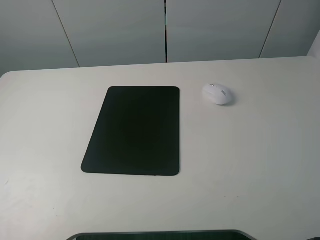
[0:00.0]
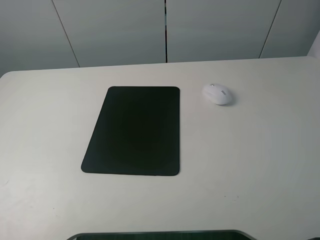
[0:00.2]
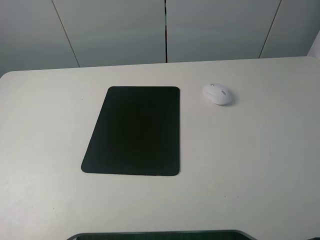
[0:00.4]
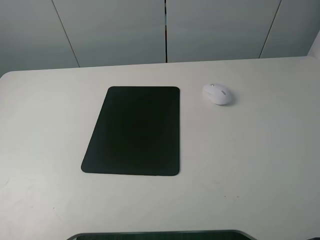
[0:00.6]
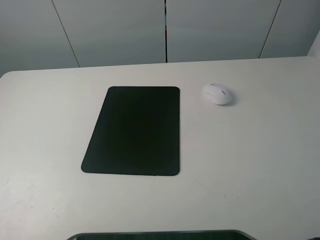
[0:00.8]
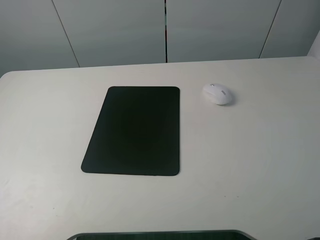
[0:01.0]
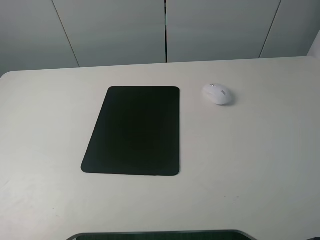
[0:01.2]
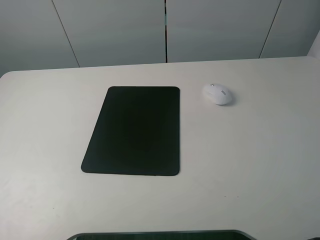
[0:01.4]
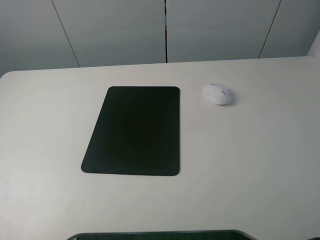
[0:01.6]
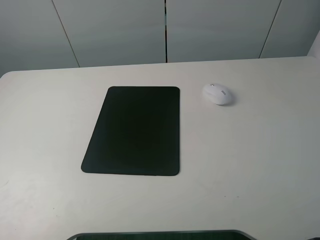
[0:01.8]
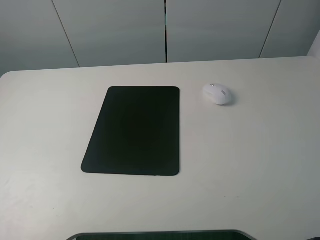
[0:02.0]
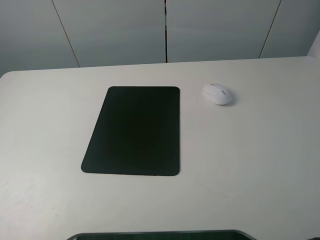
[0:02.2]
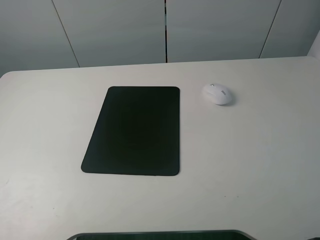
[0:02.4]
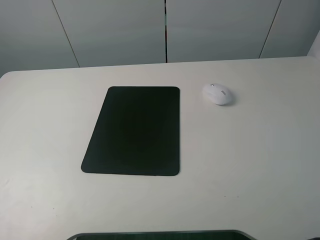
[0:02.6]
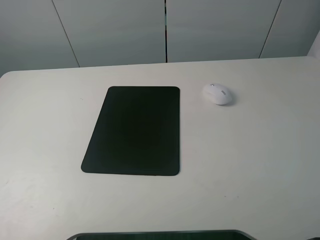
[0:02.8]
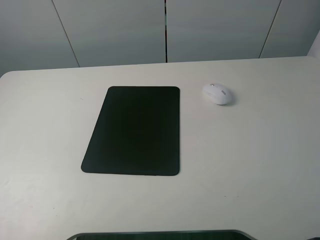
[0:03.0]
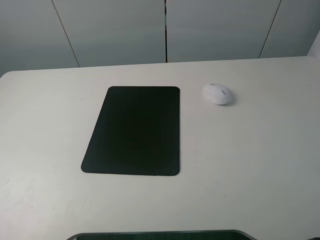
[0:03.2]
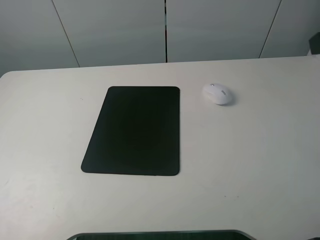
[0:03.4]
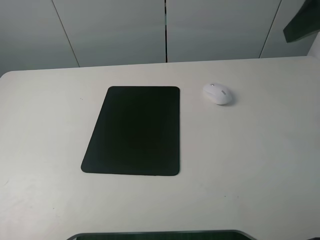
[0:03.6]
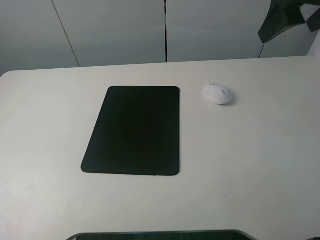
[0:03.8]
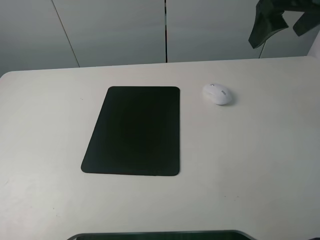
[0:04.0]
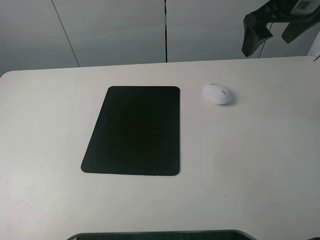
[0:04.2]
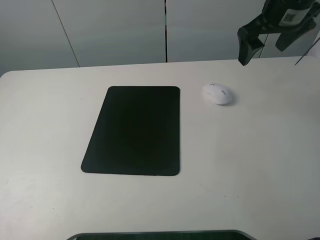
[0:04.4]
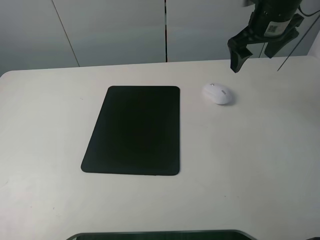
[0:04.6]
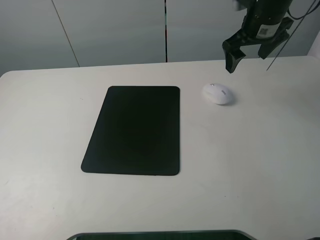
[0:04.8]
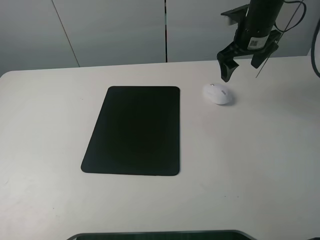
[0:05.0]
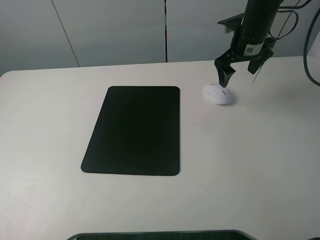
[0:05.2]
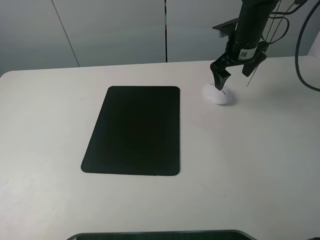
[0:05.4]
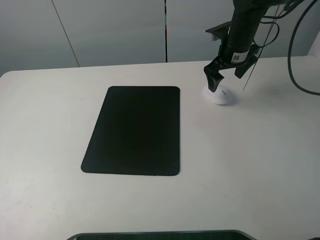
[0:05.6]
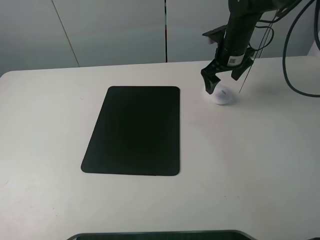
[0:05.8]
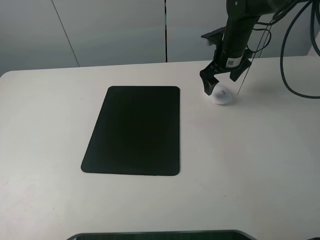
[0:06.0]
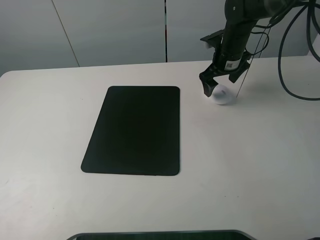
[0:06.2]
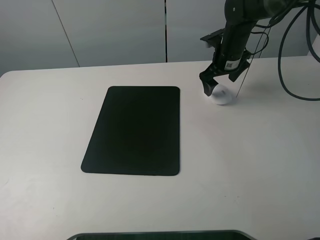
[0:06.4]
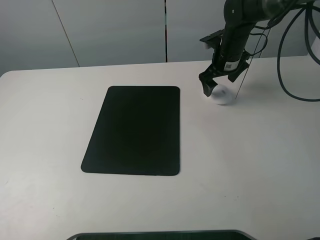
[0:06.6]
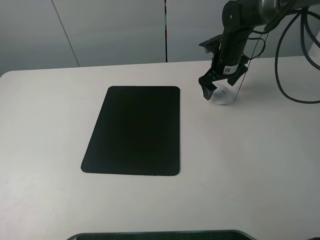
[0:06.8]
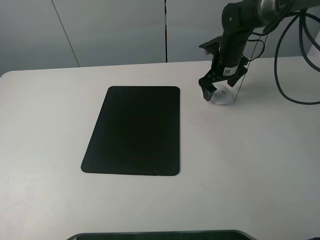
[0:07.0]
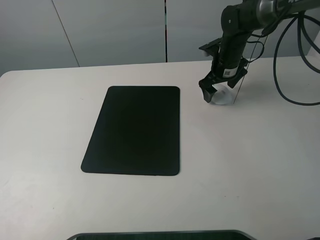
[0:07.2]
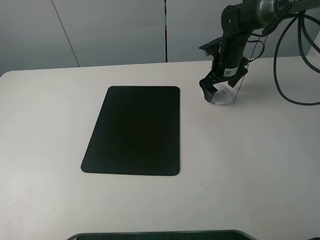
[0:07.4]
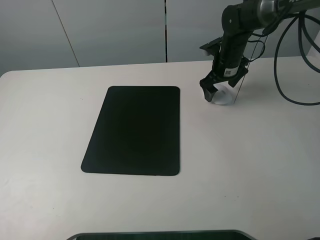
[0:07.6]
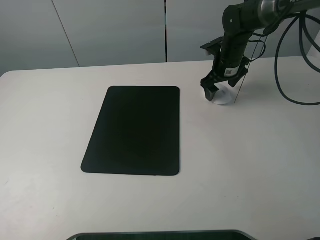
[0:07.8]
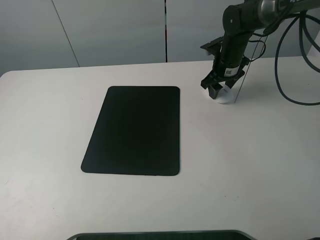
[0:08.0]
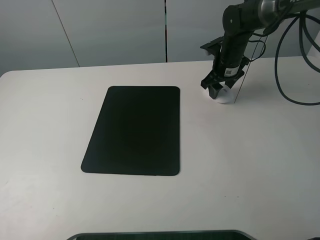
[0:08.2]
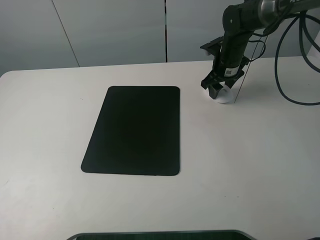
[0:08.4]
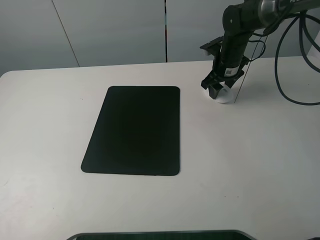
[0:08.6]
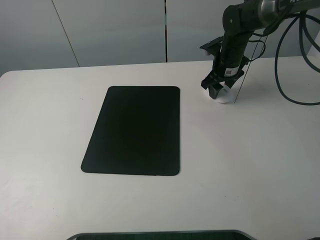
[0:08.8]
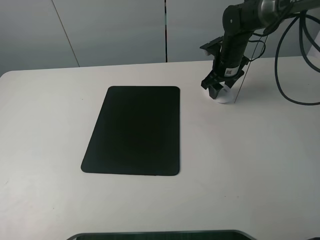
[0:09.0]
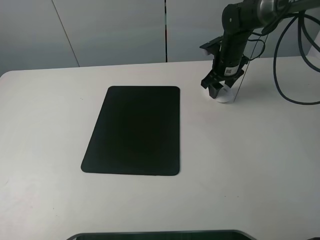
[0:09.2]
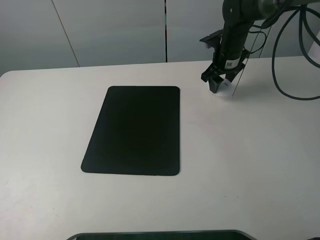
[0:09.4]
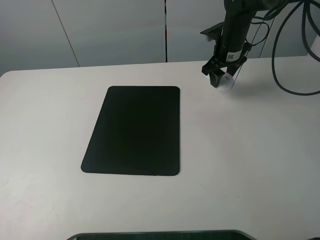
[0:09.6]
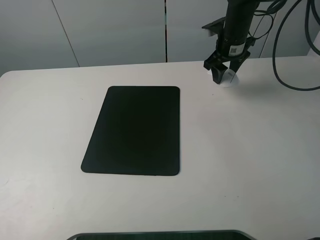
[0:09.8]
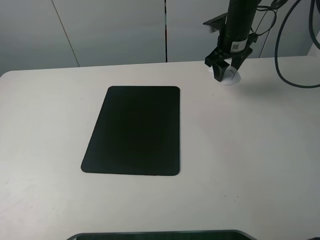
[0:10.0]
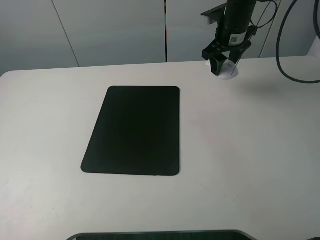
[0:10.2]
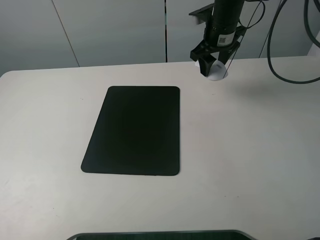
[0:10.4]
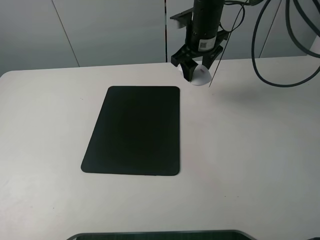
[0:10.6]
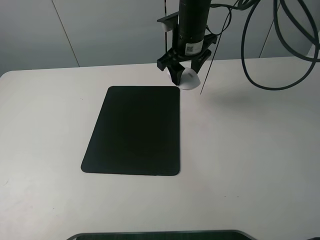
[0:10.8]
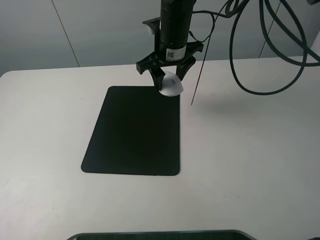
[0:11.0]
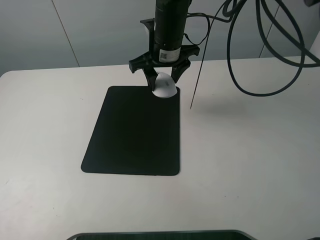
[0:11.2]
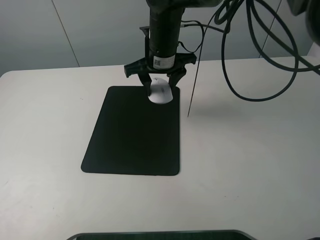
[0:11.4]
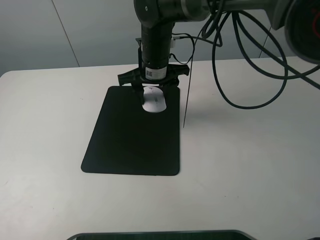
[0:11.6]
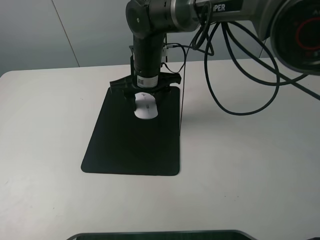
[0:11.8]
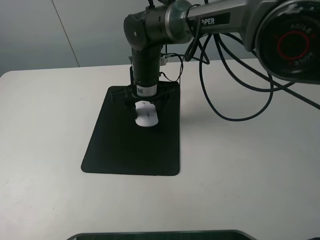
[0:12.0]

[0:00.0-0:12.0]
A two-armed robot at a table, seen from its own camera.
Step, 0:00.0 to 0:08.6: Grasp the mouse with the right gripper.
0:00.0 to 0:01.6: Both grippers stay about where they are.
0:03.0 to 0:04.4: The right gripper travels forward by roughly 30 cm.
0:04.4 to 0:06.0: The right gripper is displaced downward and forward by about 15 cm.
0:06.0 to 0:07.6: There are only small adjustments of the grippers.
0:07.6 to 0:09.0: The right gripper closes its fingers.
0:09.0 to 0:10.4: The right gripper shifts roughly 10 cm upward.
0:10.4 to 0:12.0: The right gripper moves to the left, backward and downward, some 20 cm.

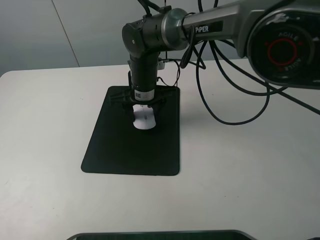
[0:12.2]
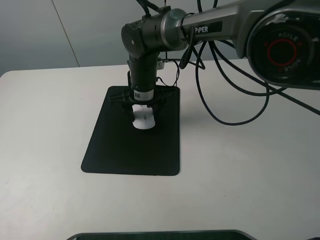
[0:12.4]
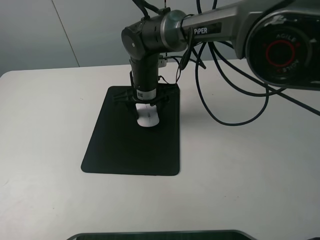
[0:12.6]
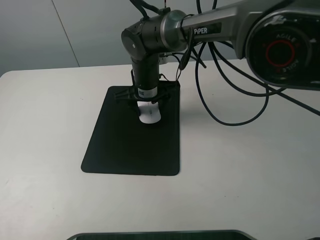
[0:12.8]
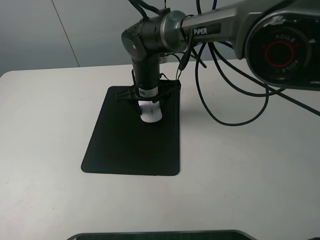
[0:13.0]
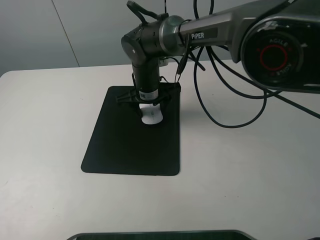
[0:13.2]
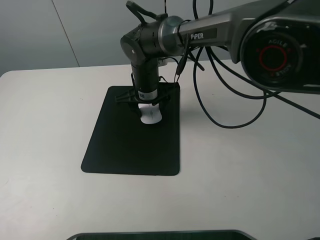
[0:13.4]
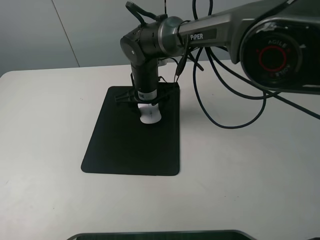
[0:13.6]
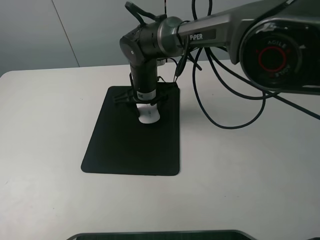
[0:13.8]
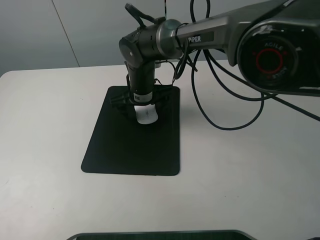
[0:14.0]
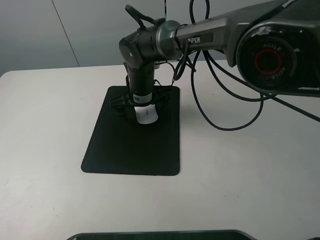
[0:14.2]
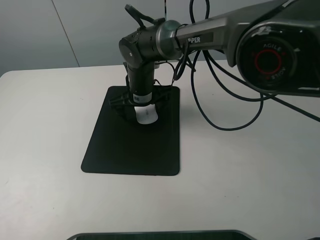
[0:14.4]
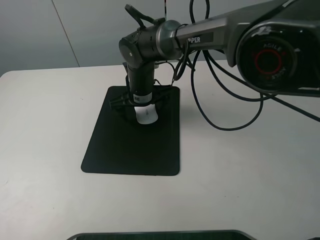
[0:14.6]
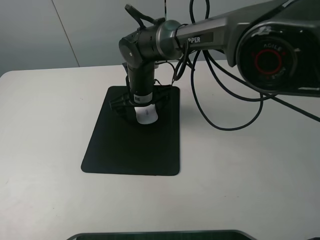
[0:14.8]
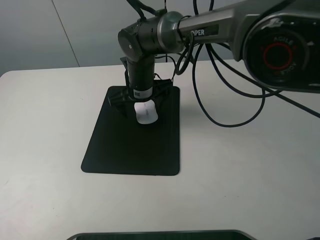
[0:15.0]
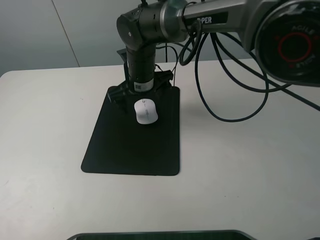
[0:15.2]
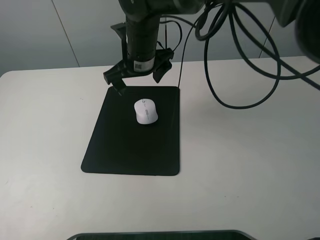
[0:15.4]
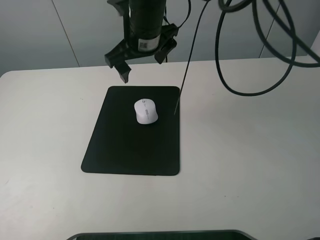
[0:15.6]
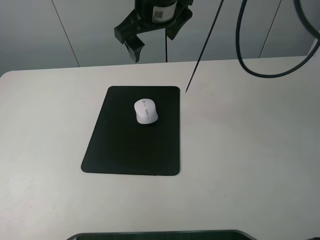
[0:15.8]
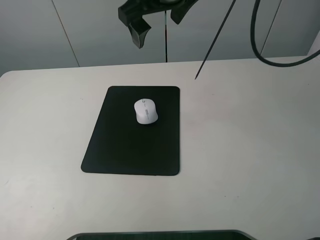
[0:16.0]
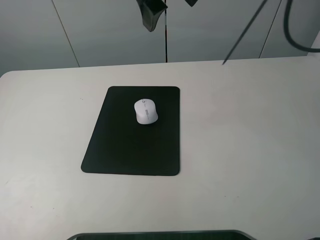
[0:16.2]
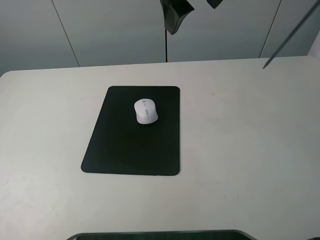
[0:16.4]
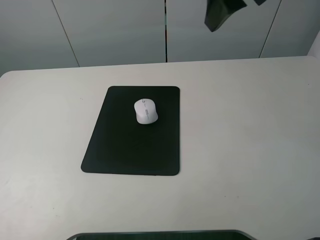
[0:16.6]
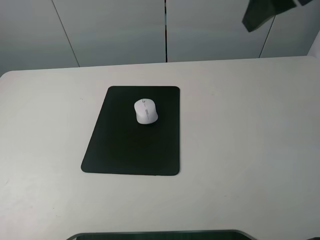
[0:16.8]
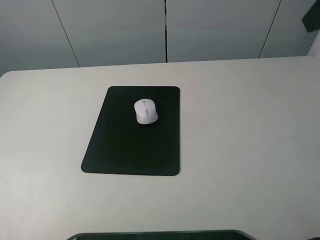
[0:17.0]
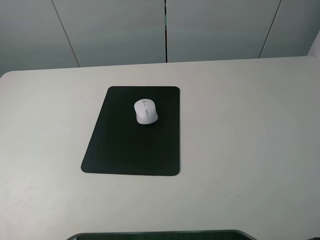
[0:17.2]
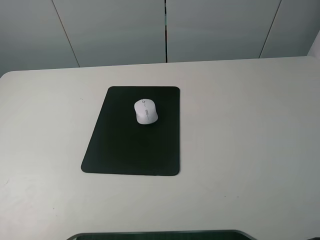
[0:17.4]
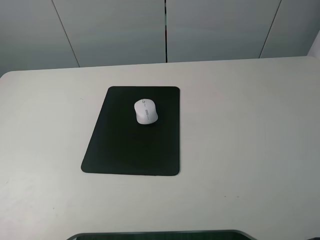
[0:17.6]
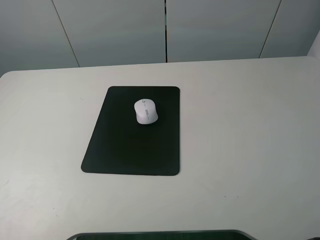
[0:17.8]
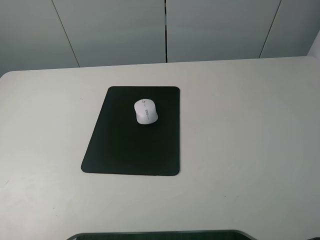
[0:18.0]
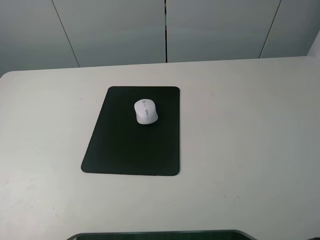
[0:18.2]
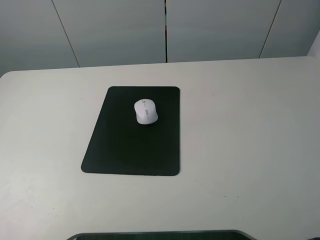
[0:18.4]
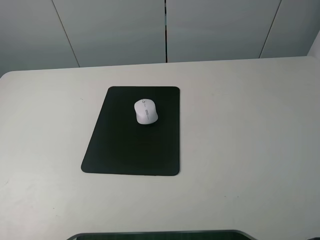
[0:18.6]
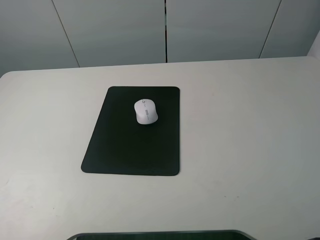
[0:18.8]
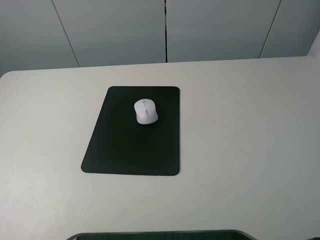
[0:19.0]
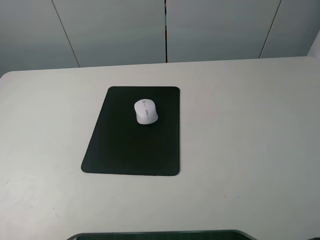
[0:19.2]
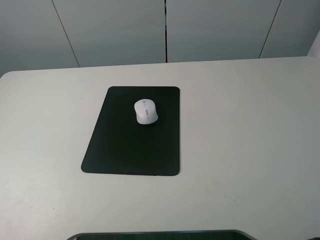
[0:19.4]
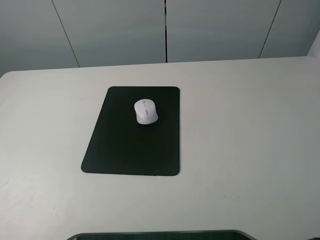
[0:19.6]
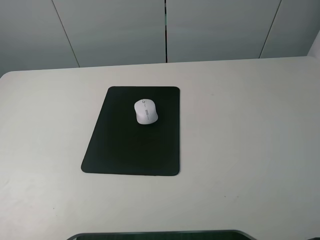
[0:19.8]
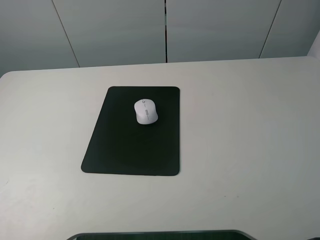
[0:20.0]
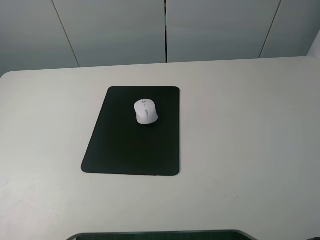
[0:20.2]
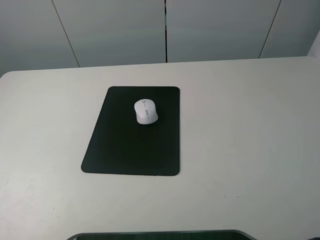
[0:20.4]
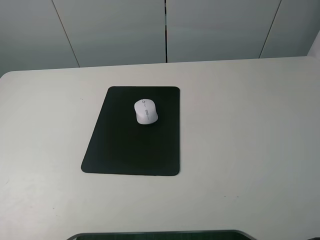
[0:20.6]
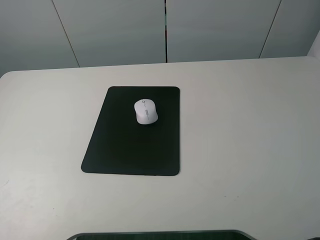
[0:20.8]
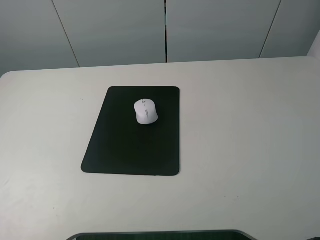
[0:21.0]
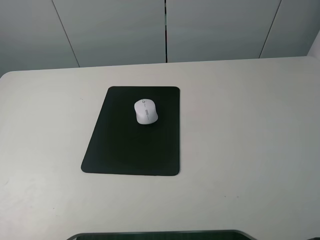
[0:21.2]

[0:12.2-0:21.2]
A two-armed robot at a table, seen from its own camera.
Step, 0:12.2 to 0:14.4: Place the mouse on the mouse mat with the right gripper.
0:12.2 to 0:13.8: The grippers make only small movements.
0:13.8 to 0:15.2: The right gripper opens.
0:15.2 to 0:16.6: The right gripper is displaced upward, to the right and backward by some 30 cm.
0:16.6 to 0:18.2: The right gripper goes roughly 25 cm backward and to the right.
0:19.8 to 0:21.2: Both grippers stay about where they are.

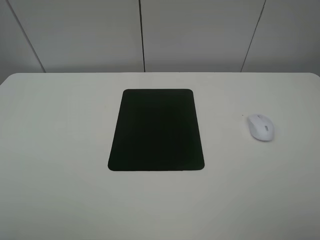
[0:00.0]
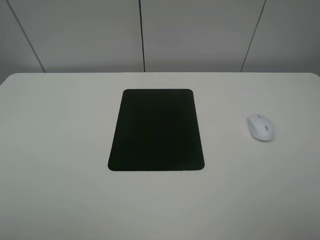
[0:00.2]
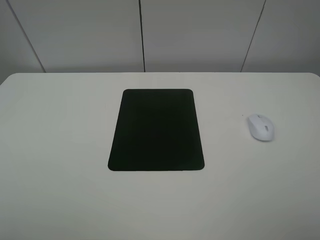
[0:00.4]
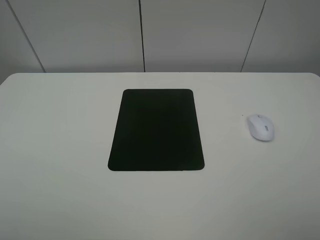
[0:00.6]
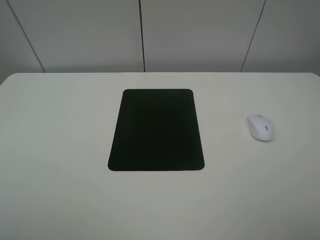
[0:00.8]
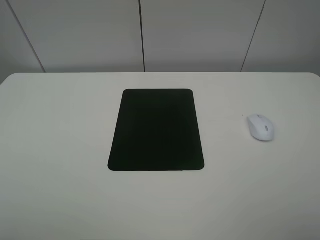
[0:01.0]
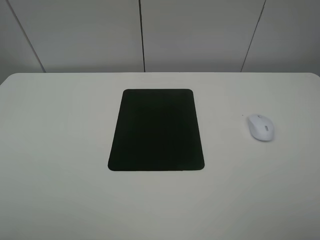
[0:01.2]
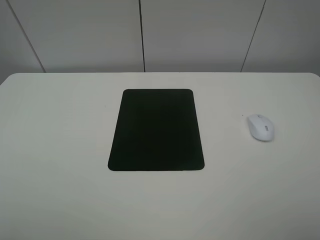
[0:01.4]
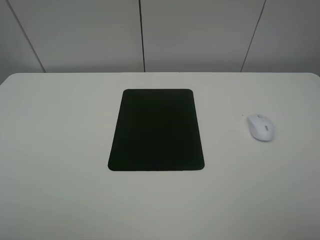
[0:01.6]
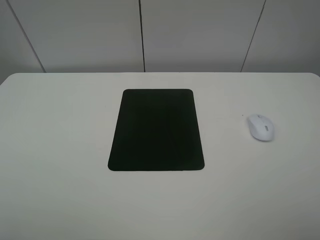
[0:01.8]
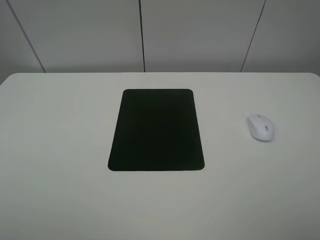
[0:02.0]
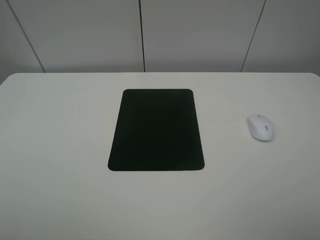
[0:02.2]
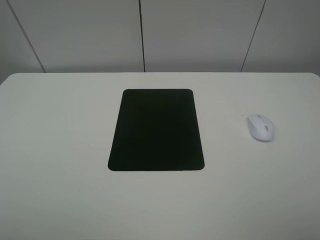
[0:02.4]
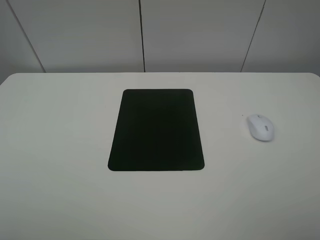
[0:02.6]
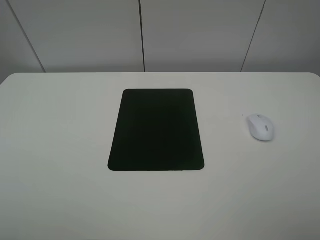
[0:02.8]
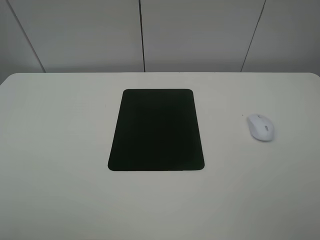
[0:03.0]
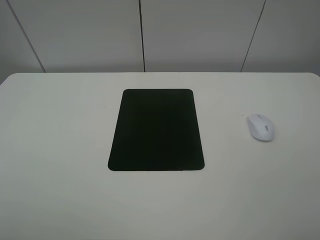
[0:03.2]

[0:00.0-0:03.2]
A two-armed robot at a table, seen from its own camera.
0:00.0 to 0:01.6: Both grippers stay about where they are.
